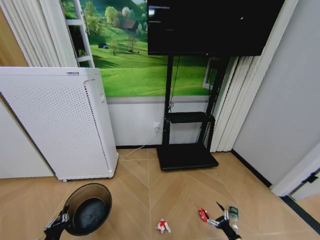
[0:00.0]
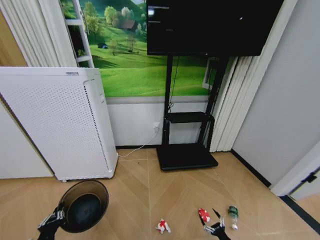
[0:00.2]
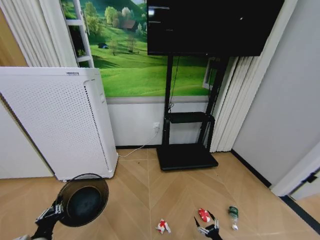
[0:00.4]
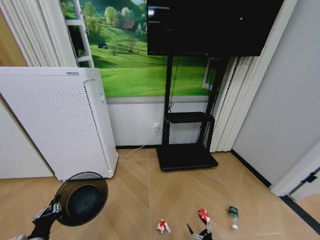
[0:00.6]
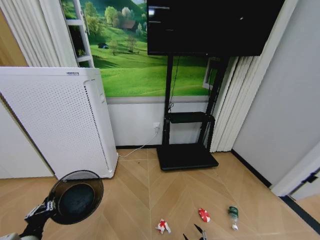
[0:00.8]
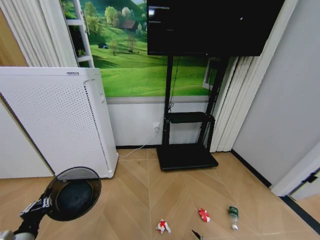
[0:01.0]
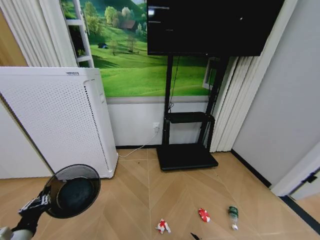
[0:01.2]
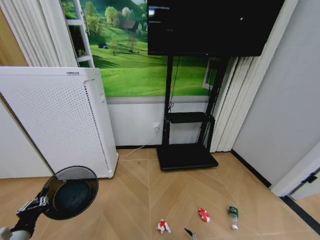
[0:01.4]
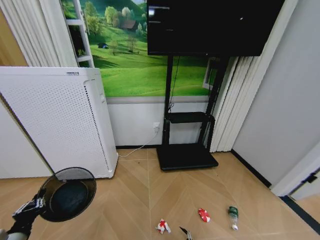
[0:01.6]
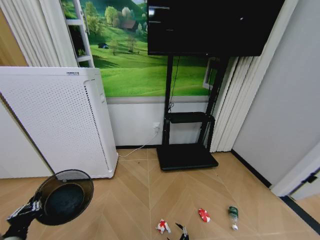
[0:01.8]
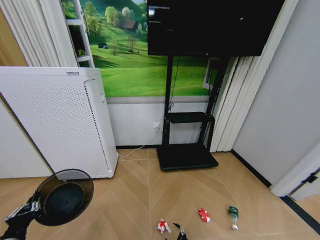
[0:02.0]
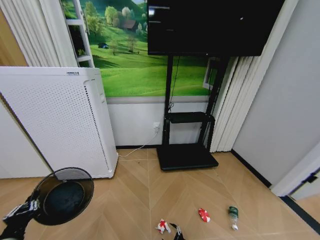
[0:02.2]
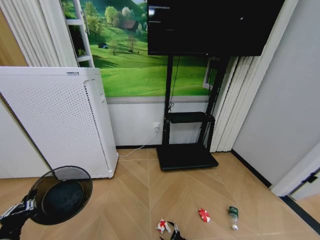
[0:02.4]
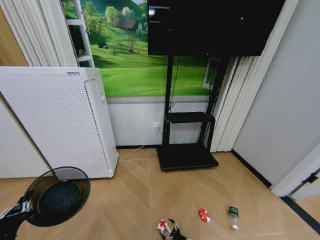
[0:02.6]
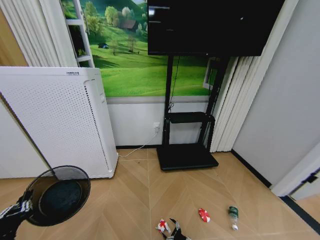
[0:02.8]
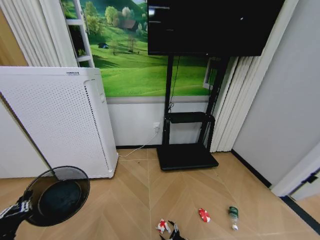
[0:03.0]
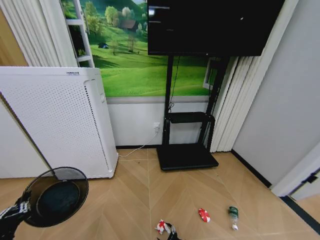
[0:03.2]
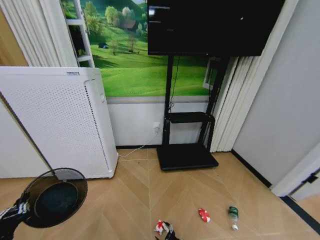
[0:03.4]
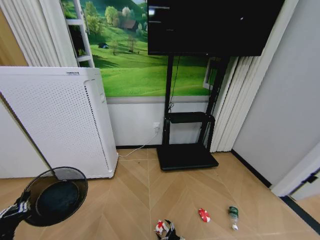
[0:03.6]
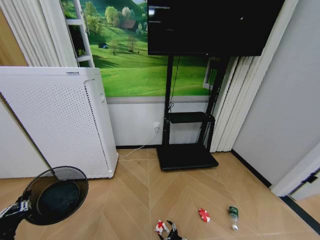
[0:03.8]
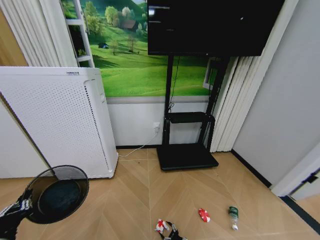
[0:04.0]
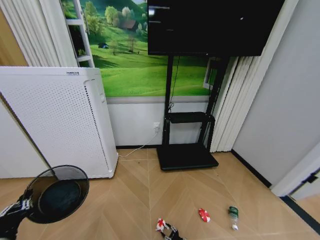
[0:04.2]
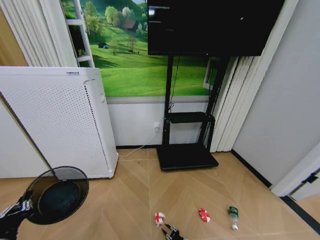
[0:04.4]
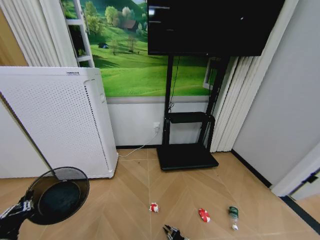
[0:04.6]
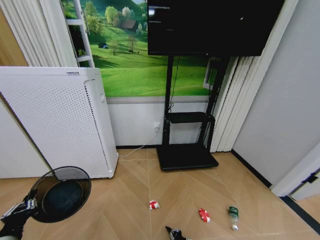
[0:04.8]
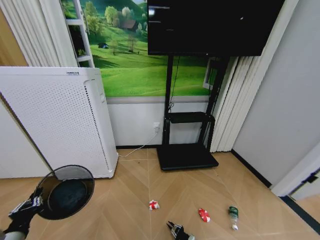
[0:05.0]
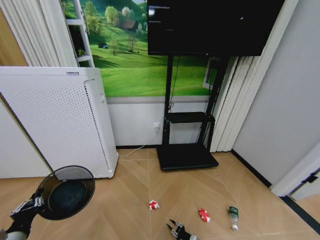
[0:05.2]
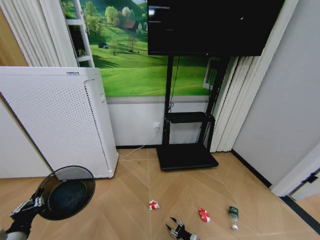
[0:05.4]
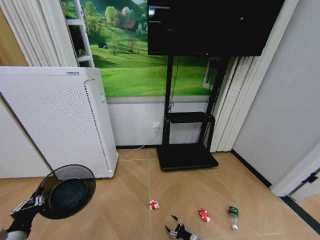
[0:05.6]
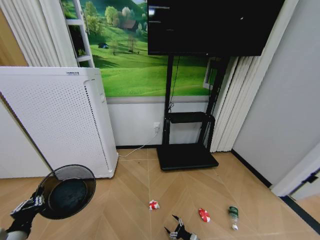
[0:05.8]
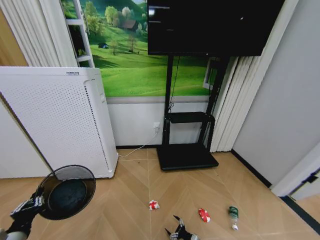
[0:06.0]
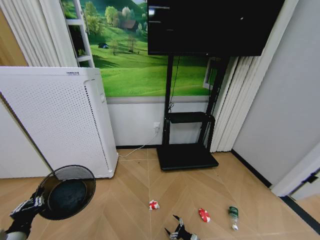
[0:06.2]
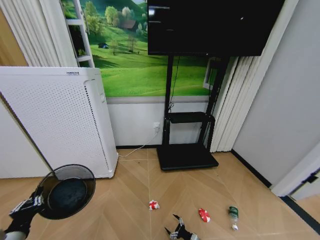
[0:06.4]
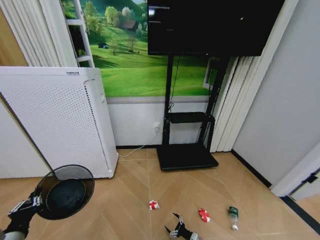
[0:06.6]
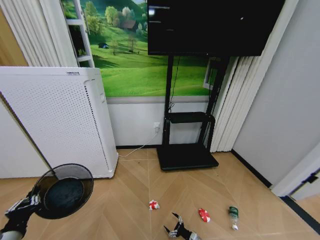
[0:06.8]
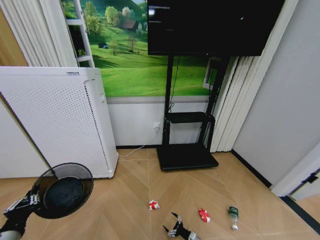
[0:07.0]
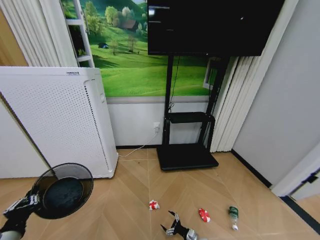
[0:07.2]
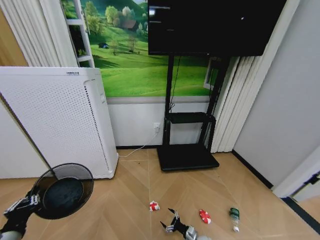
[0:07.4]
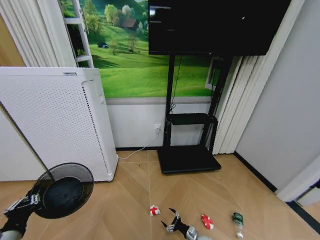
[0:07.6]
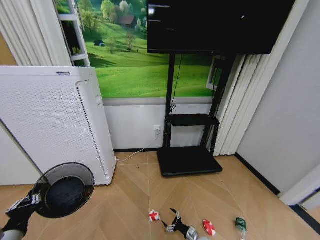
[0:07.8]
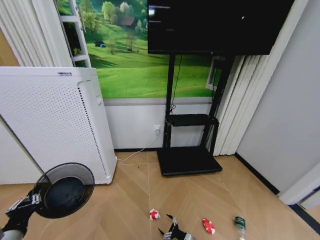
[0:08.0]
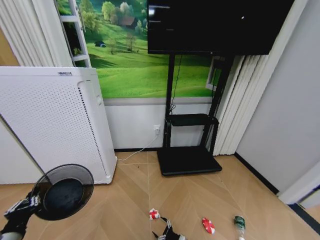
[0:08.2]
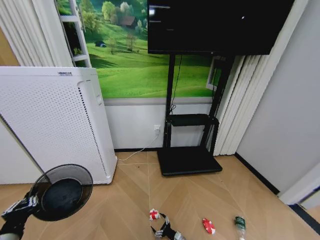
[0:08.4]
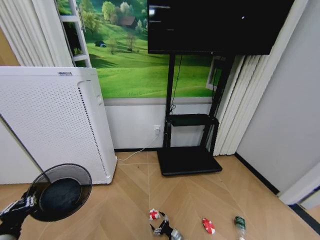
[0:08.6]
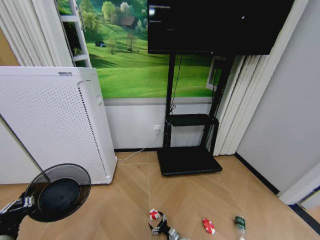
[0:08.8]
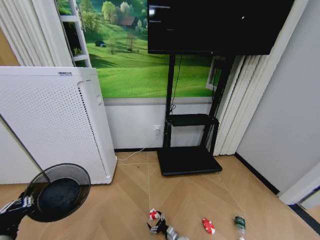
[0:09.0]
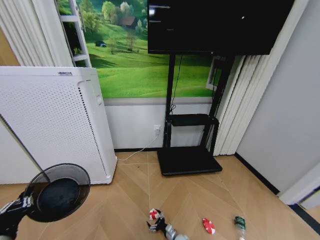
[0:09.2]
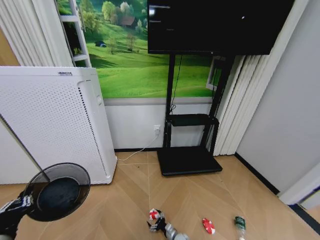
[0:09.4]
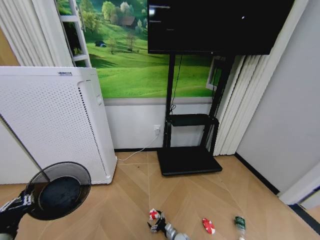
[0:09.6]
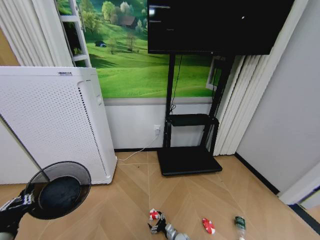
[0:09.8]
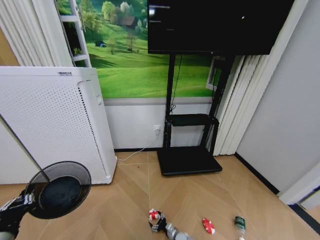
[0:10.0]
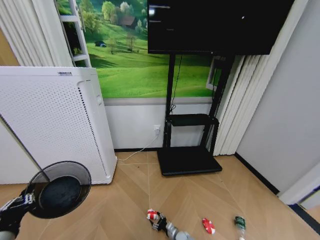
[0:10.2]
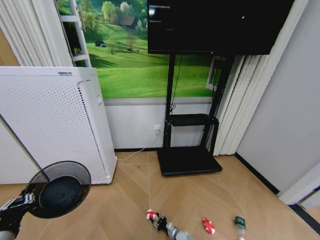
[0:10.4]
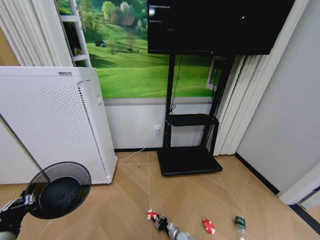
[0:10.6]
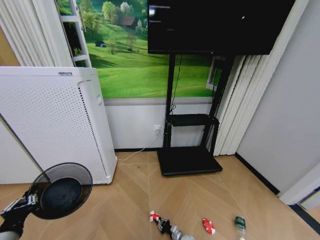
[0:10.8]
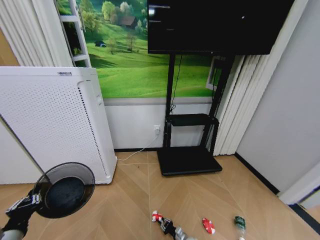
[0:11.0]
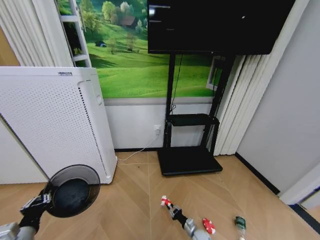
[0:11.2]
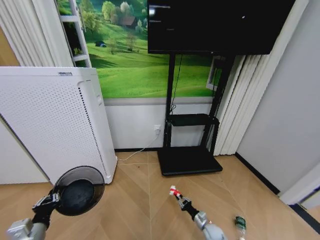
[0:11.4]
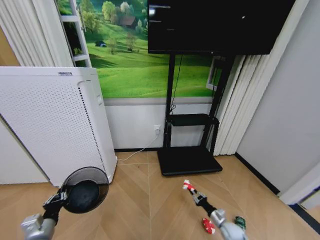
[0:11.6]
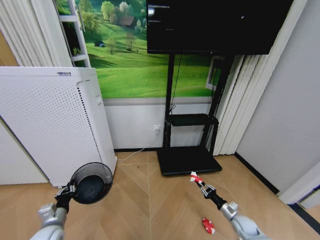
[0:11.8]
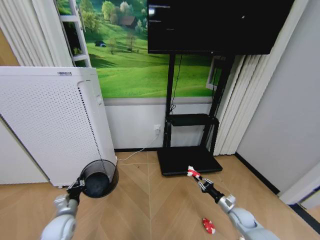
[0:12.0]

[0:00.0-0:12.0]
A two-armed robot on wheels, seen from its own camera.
Task of the whole recording: Pick up the trash bin and place the garbage on the floor into it.
0:00.0 to 0:01.6: The left gripper goes approximately 10 cm upward. Meanwhile the right gripper goes roughly 15 cm to the left and downward.
0:06.0 to 0:07.6: The grippers move only a little.
0:07.6 to 0:09.0: The right gripper shifts roughly 10 cm to the left.
0:10.4 to 0:12.0: The right gripper goes roughly 35 cm to the right and upward, and closes, while the left gripper goes some 20 cm forward and downward.

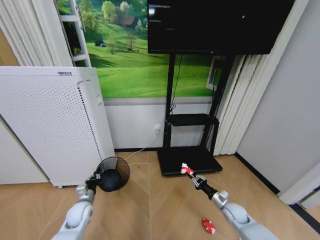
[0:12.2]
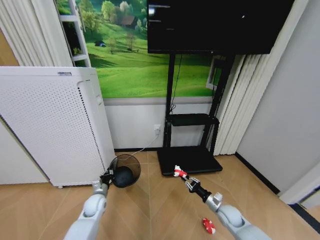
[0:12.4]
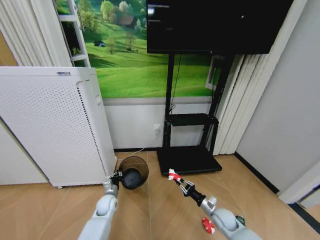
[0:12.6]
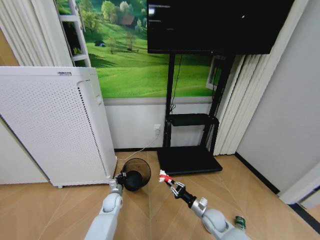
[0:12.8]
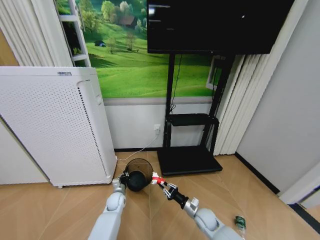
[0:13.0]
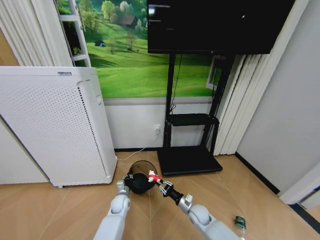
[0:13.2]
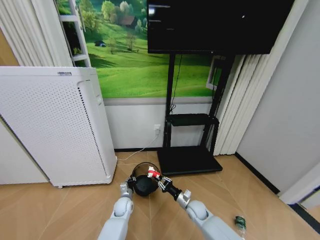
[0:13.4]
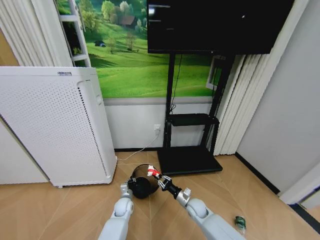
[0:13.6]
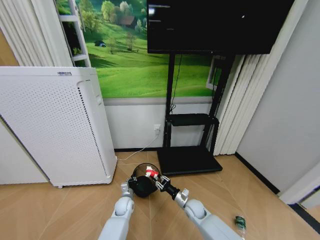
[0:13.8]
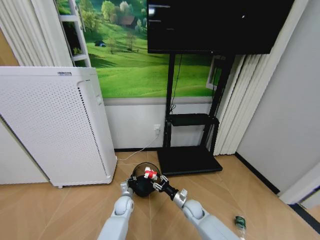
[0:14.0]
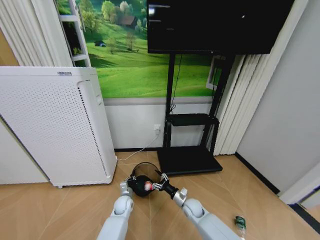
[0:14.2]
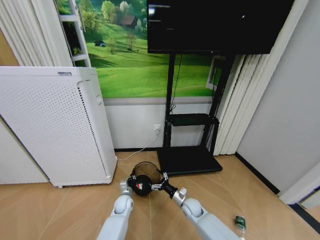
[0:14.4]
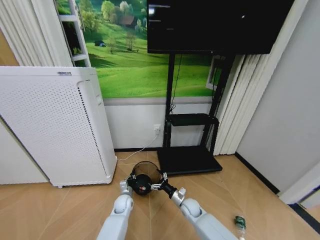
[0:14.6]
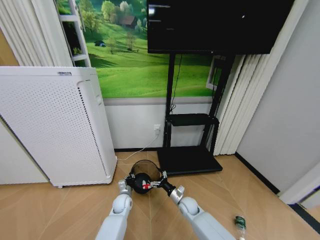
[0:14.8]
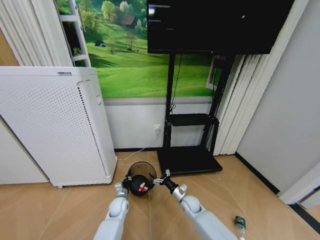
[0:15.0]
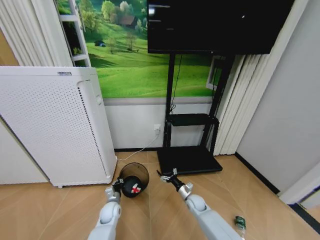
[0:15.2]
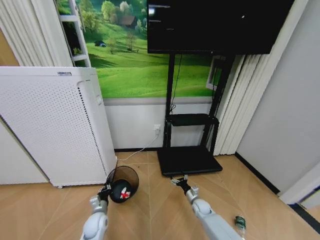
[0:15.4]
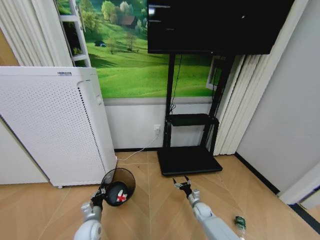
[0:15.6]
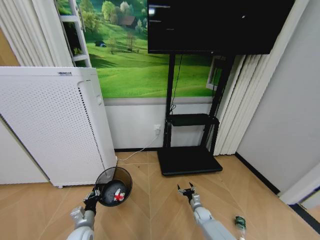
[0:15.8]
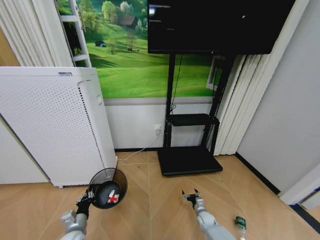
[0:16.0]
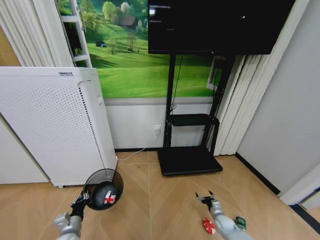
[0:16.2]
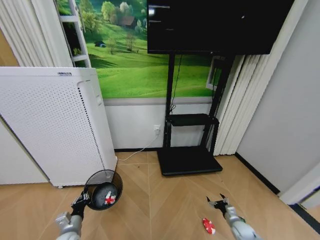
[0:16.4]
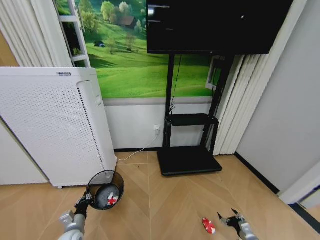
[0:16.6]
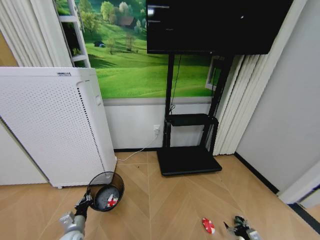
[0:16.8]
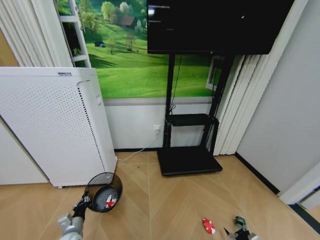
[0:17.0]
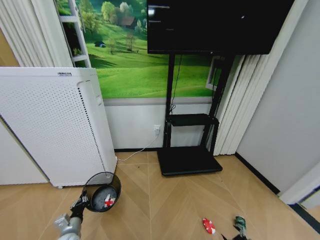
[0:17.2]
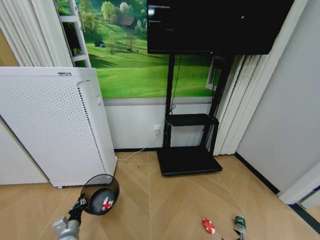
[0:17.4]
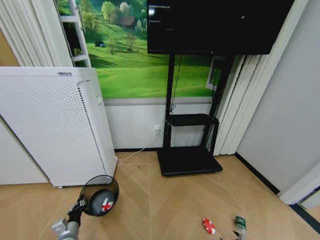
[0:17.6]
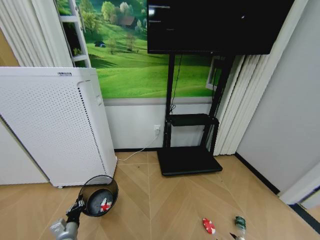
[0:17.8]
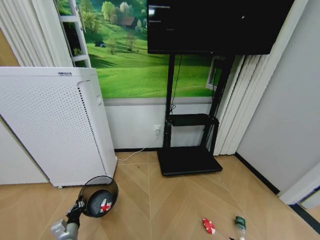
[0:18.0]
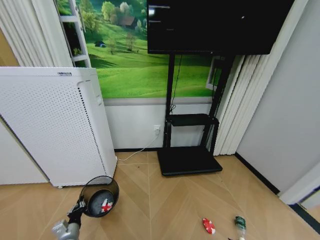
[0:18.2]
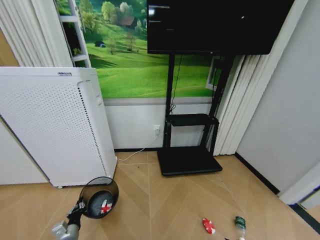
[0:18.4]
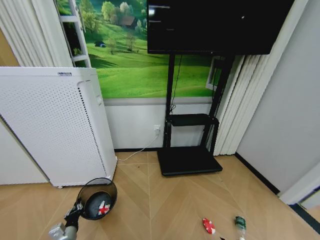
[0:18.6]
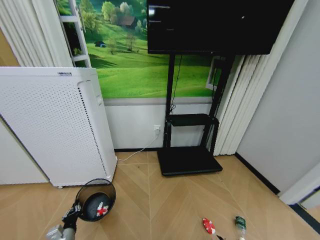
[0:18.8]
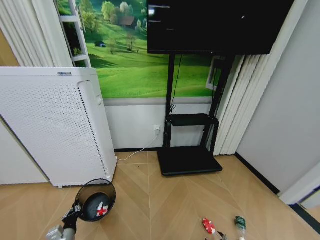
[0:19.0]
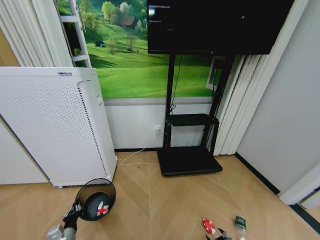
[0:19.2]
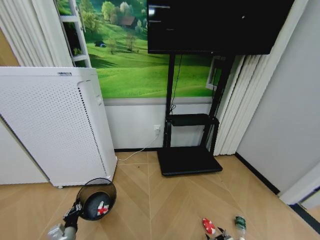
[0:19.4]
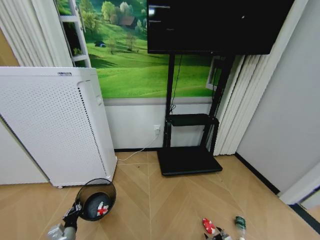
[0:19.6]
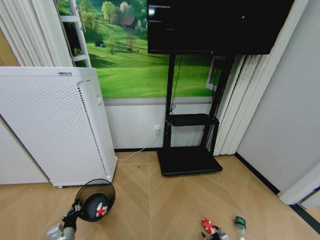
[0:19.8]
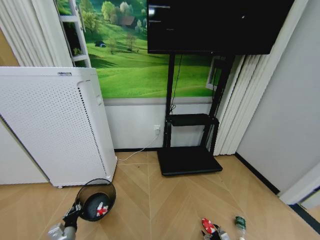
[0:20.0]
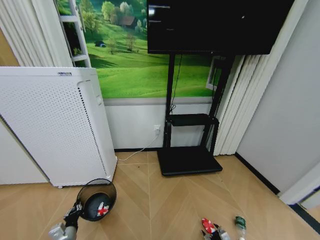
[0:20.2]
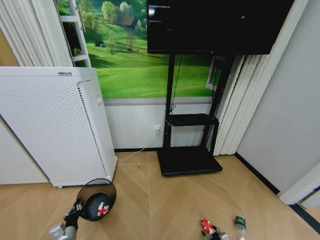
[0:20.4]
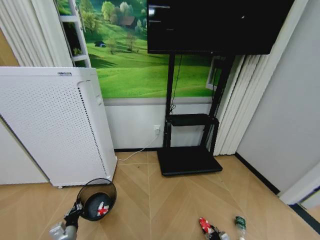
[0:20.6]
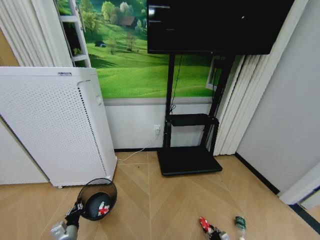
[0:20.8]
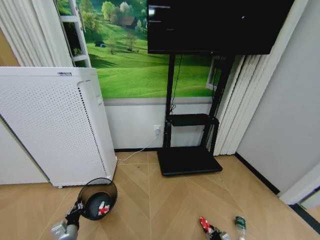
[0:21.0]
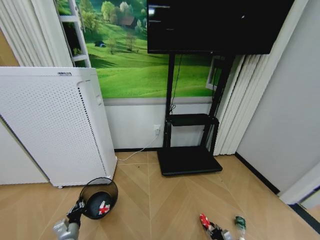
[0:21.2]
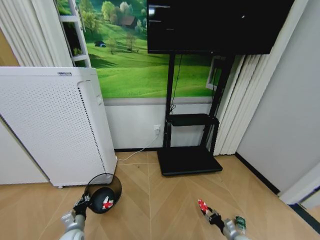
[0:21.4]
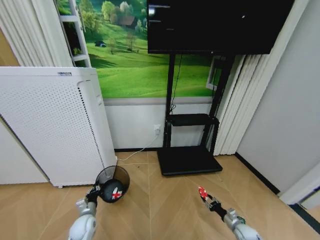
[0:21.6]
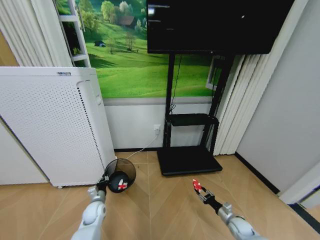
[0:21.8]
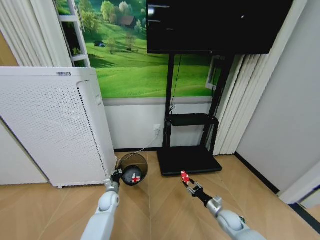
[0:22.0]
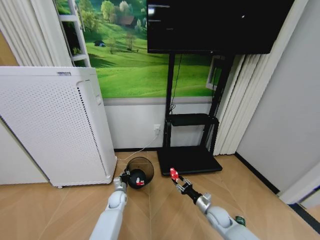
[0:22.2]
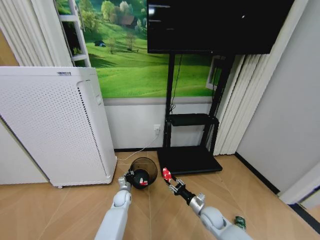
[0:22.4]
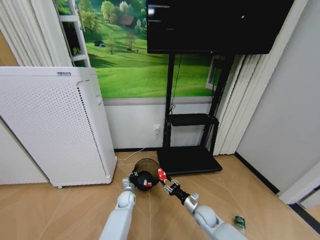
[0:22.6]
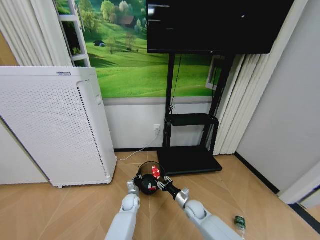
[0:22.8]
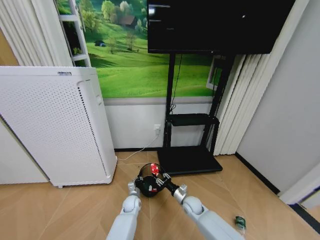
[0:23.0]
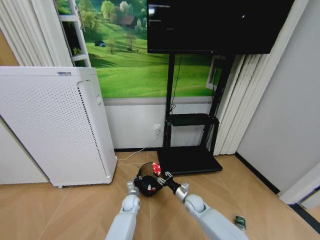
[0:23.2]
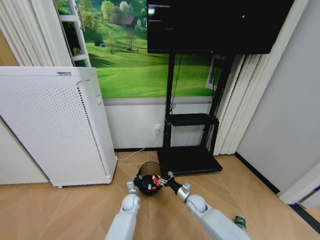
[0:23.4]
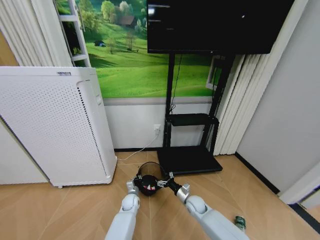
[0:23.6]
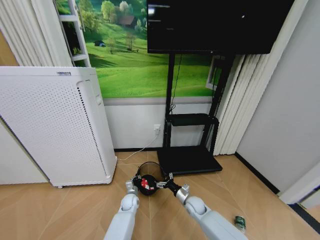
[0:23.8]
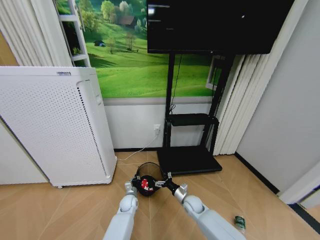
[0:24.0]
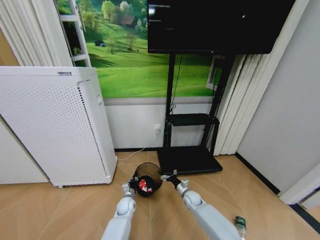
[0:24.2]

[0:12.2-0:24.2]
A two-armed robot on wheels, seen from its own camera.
Task of the whole recording: Pick up the trash bin and place the garbage on the floor into it.
0:12.2 to 0:13.8: The right gripper is displaced to the left by roughly 20 cm. Meanwhile the left gripper goes about 20 cm to the right and downward.
0:13.8 to 0:15.2: The left gripper goes some 5 cm to the left. Meanwhile the right gripper opens its fingers.
0:15.2 to 0:16.6: The right gripper travels to the right and backward by roughly 30 cm, while the left gripper travels to the left and backward by about 20 cm.
0:16.6 to 0:18.2: The right gripper goes about 10 cm backward.
0:18.2 to 0:19.8: The right gripper is displaced forward by approximately 5 cm.
0:19.8 to 0:21.2: The right gripper closes its fingers.
0:21.2 to 0:22.6: The left gripper travels forward and to the right by some 30 cm. The right gripper goes about 30 cm to the left, upward and forward.
0:22.6 to 0:24.2: The right gripper travels forward by some 10 cm, and opens up.
